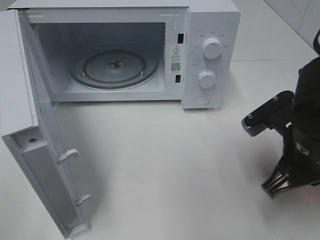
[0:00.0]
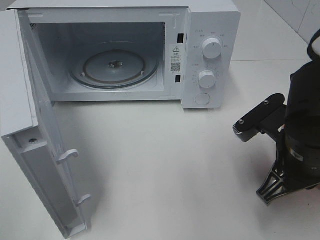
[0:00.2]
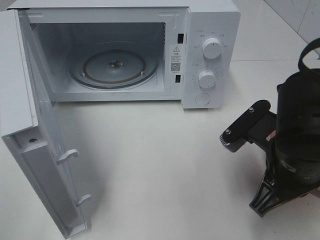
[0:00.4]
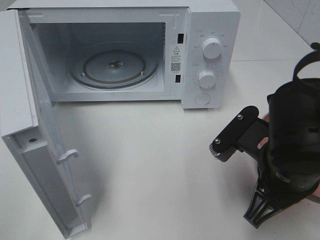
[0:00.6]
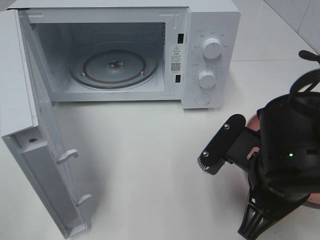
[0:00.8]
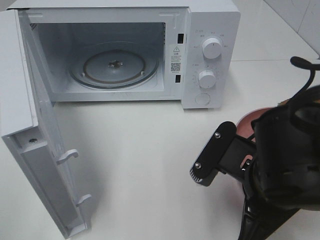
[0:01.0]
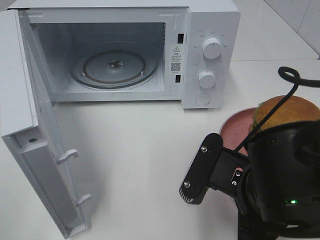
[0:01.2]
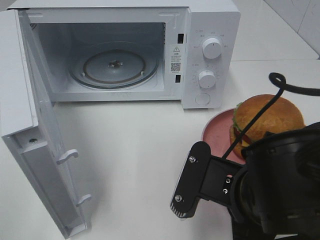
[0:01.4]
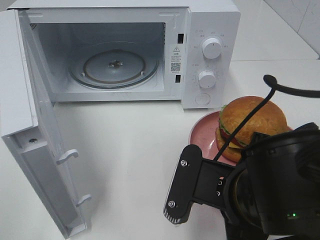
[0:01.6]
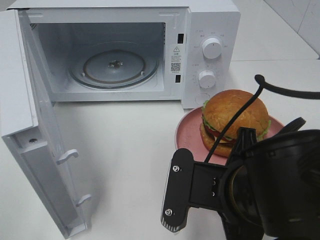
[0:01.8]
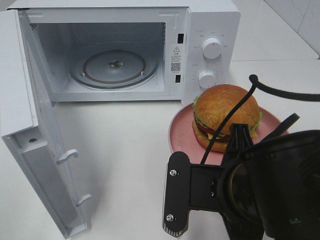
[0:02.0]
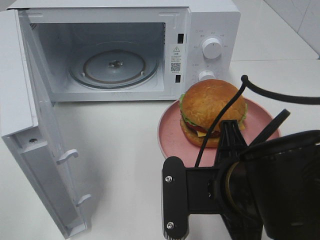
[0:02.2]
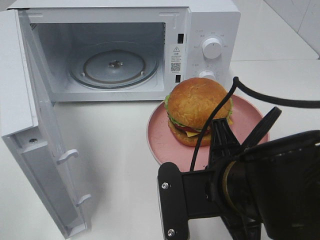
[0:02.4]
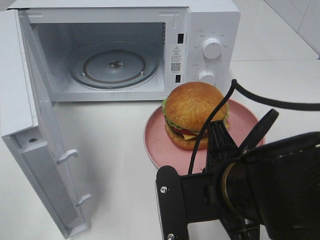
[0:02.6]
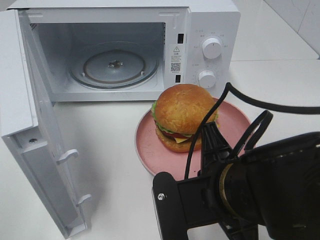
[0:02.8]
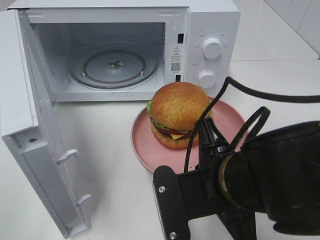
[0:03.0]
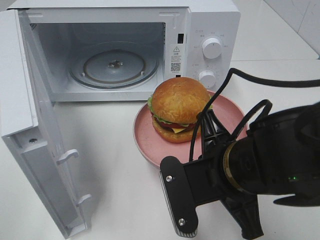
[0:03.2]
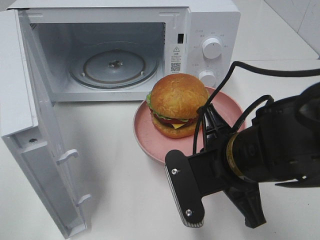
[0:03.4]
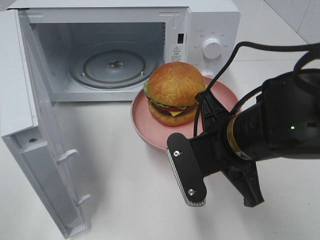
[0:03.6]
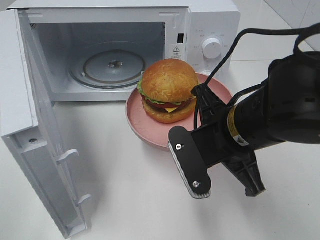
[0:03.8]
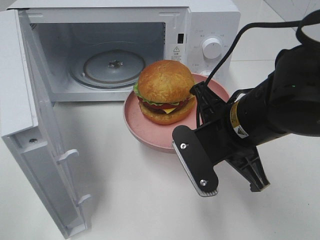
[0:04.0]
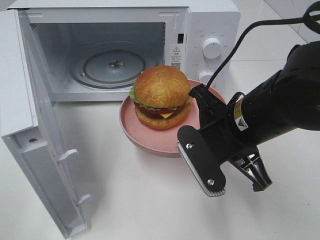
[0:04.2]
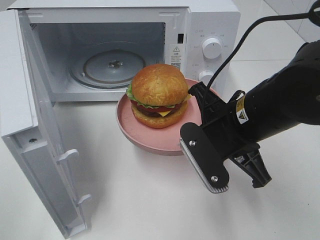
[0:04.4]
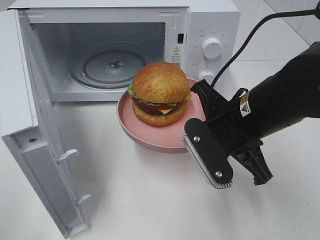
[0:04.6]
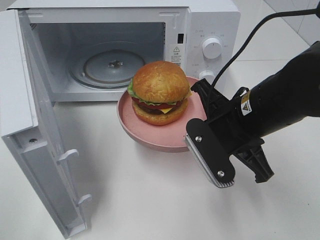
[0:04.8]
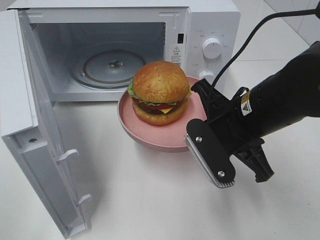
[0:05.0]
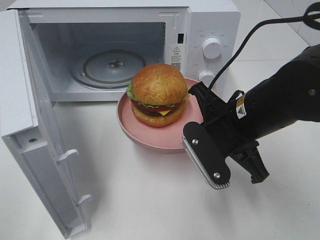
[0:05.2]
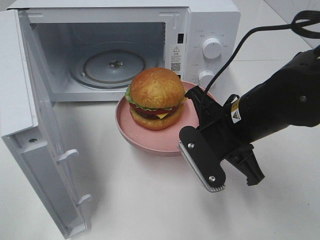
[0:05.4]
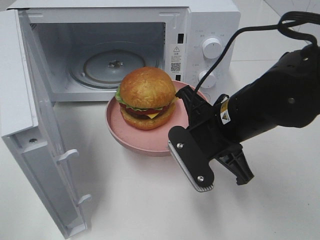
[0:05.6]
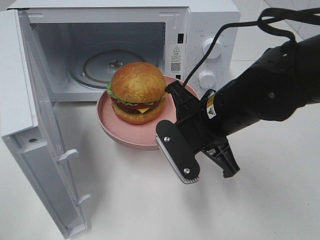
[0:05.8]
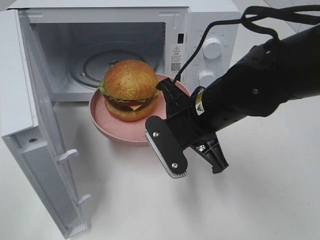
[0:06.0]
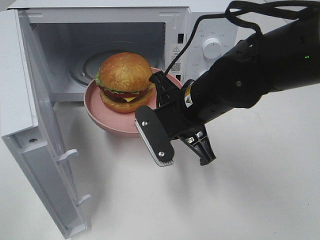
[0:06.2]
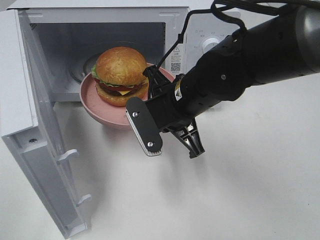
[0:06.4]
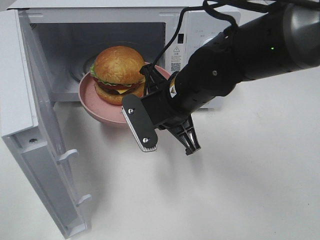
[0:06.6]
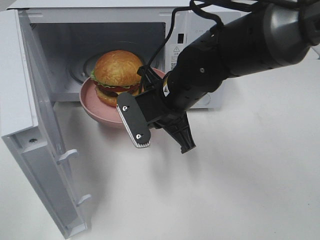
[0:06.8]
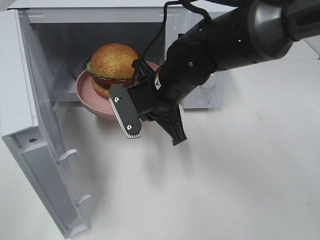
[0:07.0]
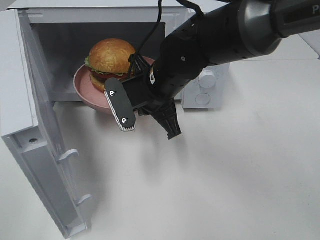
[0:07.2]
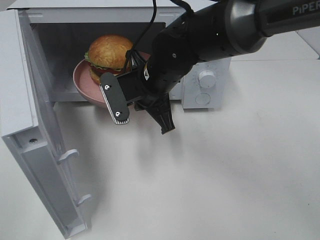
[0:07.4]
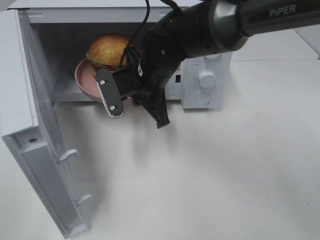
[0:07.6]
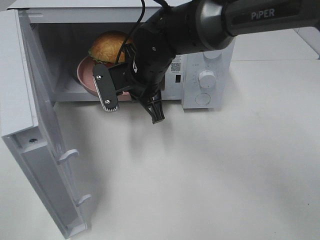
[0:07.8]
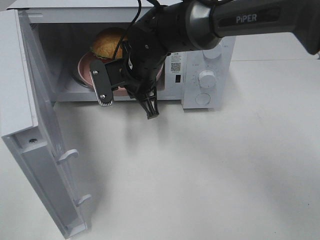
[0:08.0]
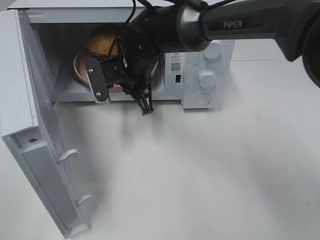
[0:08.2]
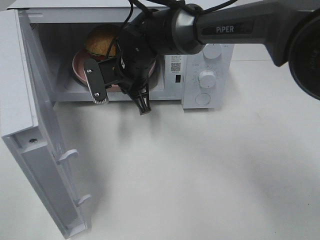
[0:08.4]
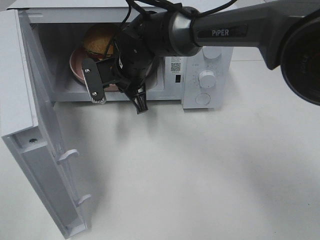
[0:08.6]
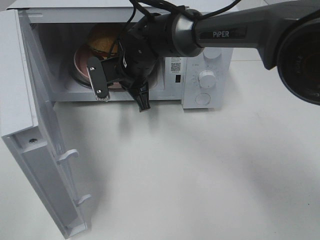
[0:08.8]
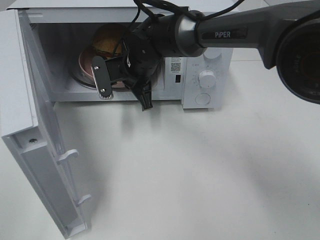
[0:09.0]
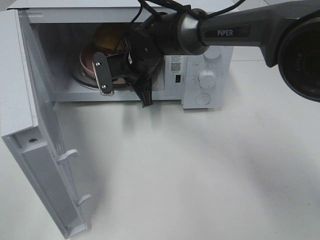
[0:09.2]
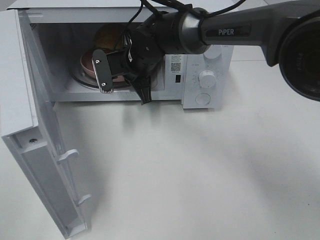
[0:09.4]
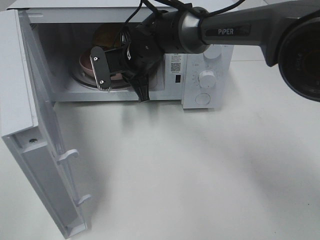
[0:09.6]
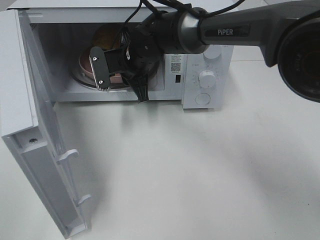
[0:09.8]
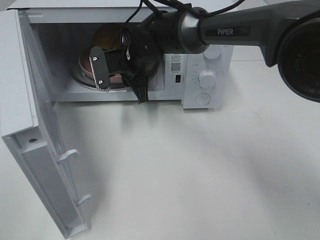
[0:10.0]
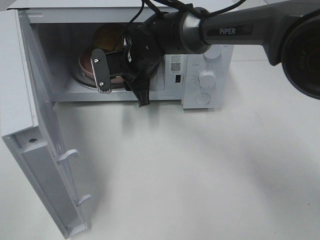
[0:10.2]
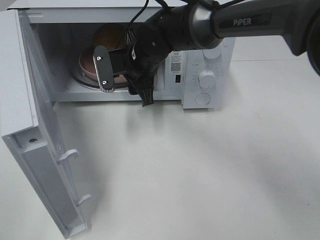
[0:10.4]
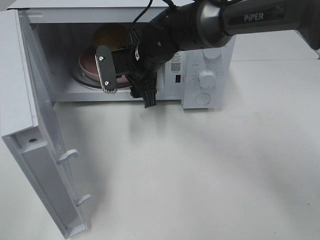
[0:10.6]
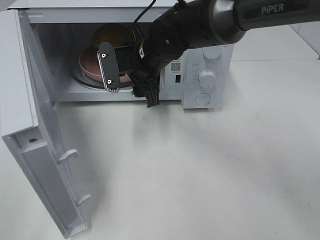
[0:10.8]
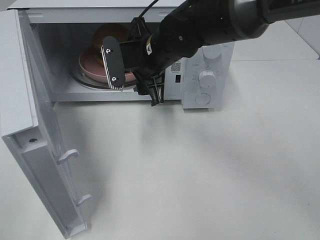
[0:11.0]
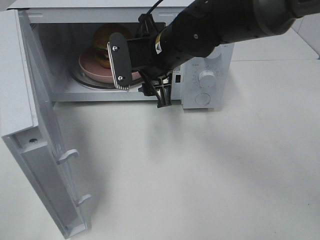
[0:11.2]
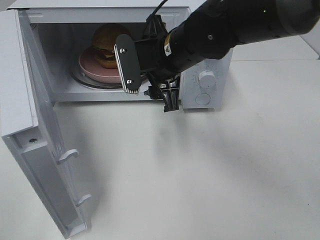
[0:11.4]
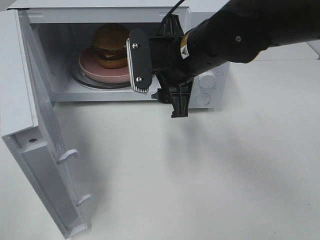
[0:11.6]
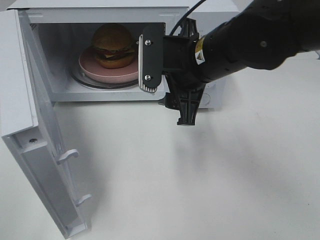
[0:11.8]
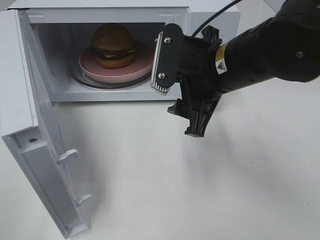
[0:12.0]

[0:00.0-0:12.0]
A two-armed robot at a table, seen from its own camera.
Task of the whole recording: Heat the burger.
Step, 0:00.0 to 0:10.0: Right hand: place the plate in the microwave.
0:00.0 to 0:01.6: The right gripper goes approximately 10 cm to the left and backward.
0:03.0 to 0:04.4: The right gripper heads forward, covering about 10 cm.
0:04.4 to 0:06.0: The right gripper ends up about 5 cm from where it was.
0:06.0 to 0:07.6: The right gripper travels forward and to the left by about 10 cm.
0:07.6 to 0:09.0: The right gripper shifts roughly 5 cm forward.
0:09.0 to 0:10.4: The right gripper opens its fingers.
0:10.4 to 0:12.0: The right gripper heads backward, to the right and upward, covering some 20 cm.

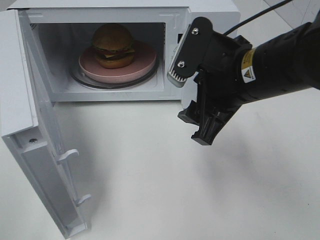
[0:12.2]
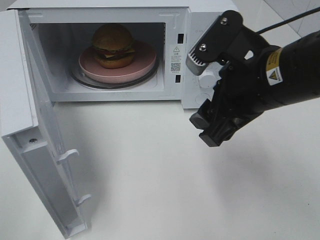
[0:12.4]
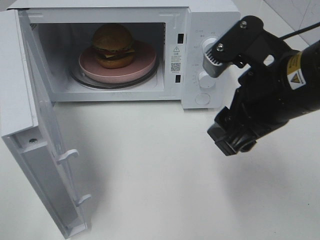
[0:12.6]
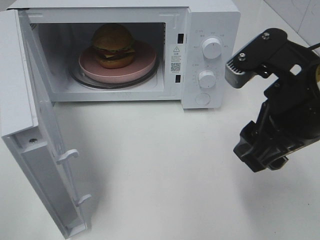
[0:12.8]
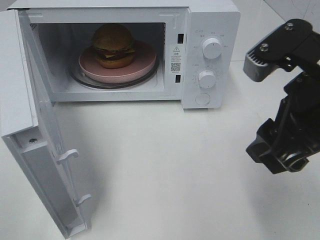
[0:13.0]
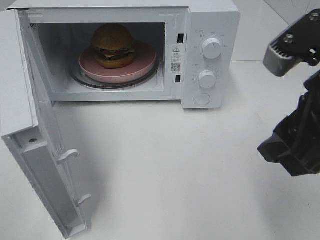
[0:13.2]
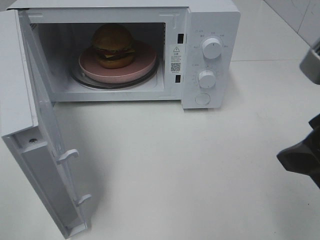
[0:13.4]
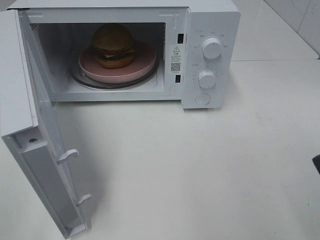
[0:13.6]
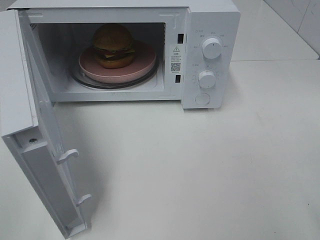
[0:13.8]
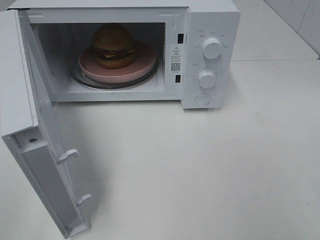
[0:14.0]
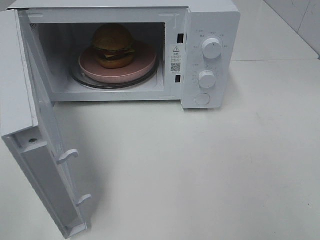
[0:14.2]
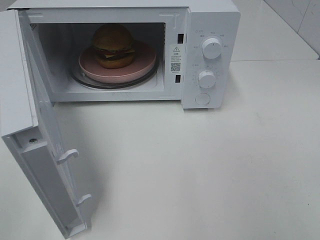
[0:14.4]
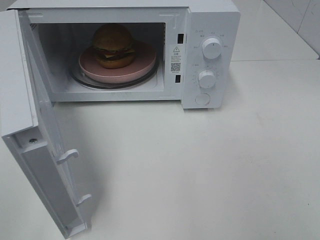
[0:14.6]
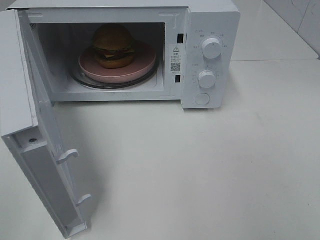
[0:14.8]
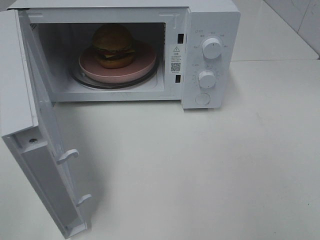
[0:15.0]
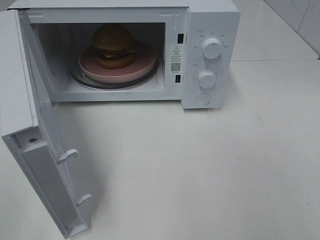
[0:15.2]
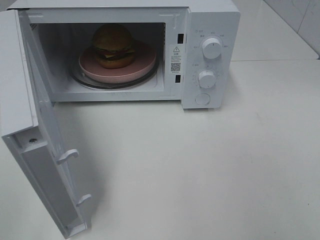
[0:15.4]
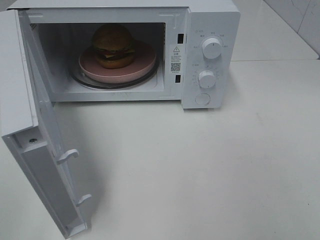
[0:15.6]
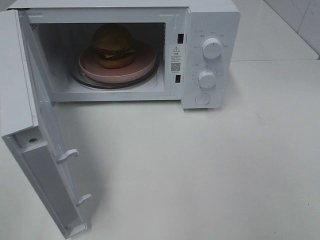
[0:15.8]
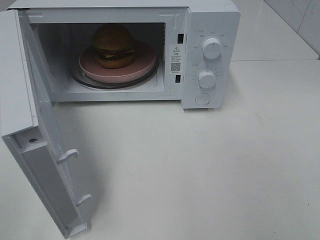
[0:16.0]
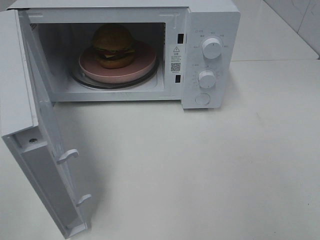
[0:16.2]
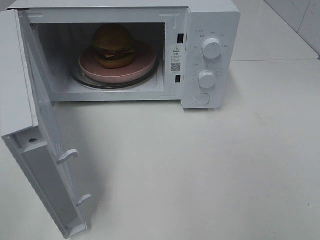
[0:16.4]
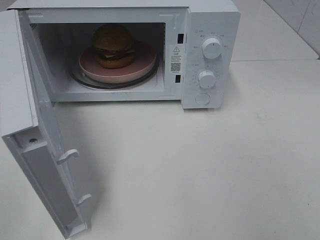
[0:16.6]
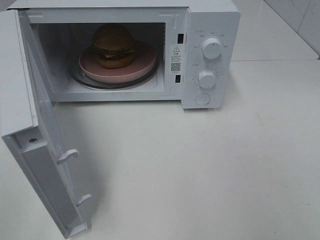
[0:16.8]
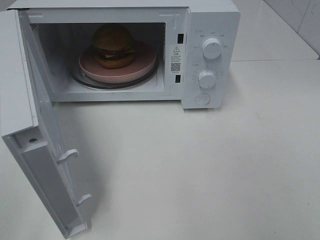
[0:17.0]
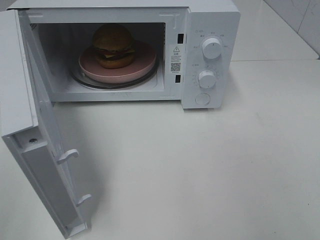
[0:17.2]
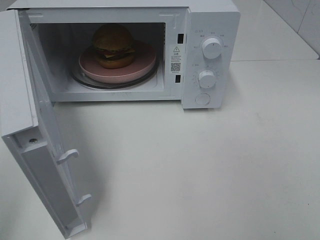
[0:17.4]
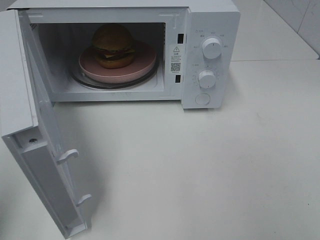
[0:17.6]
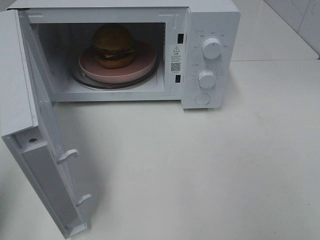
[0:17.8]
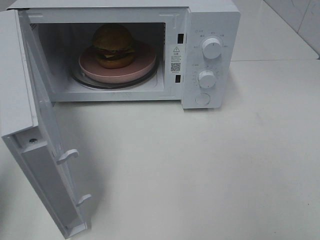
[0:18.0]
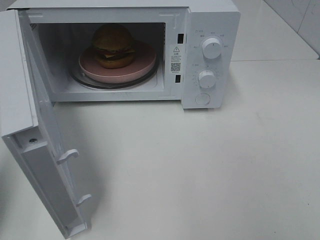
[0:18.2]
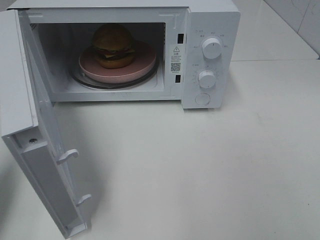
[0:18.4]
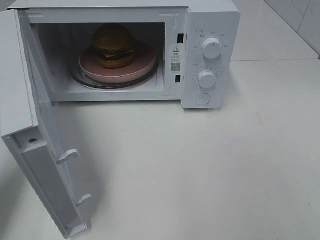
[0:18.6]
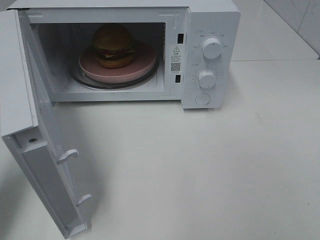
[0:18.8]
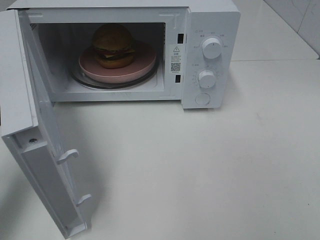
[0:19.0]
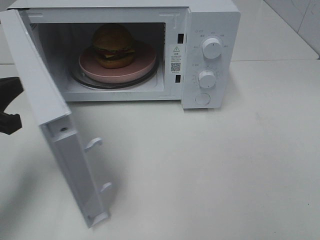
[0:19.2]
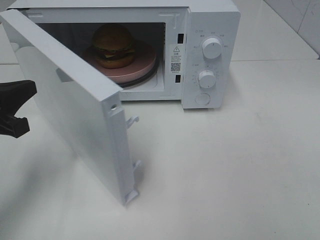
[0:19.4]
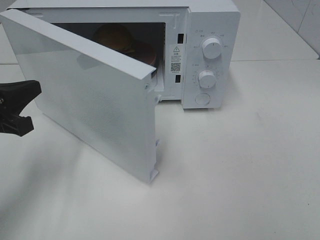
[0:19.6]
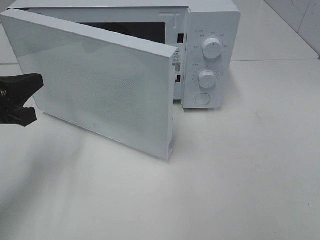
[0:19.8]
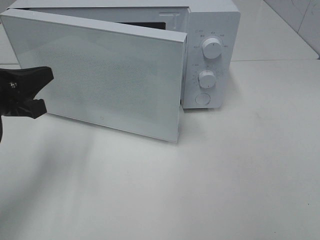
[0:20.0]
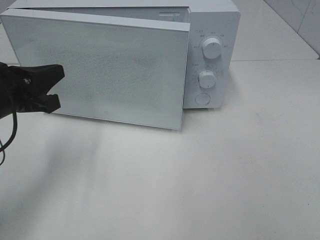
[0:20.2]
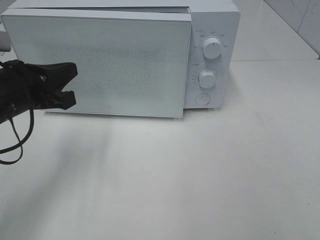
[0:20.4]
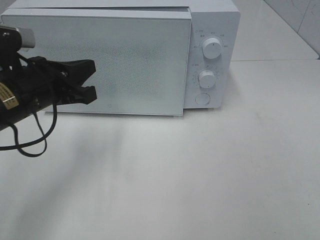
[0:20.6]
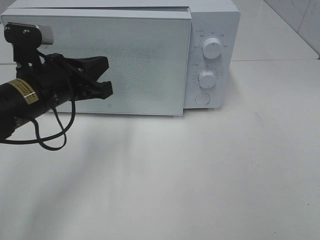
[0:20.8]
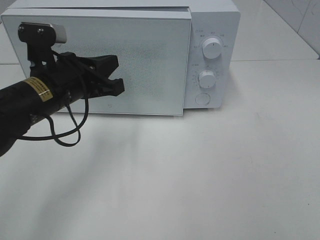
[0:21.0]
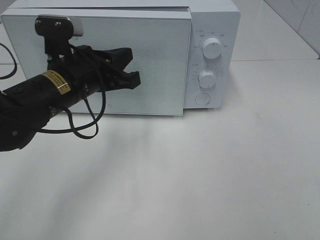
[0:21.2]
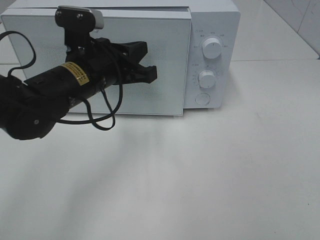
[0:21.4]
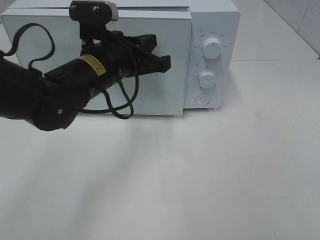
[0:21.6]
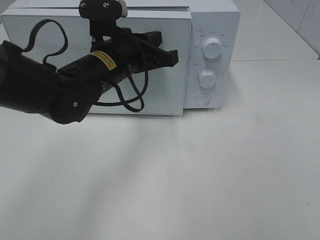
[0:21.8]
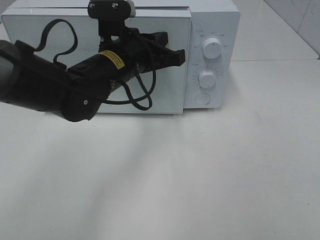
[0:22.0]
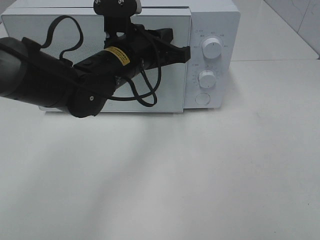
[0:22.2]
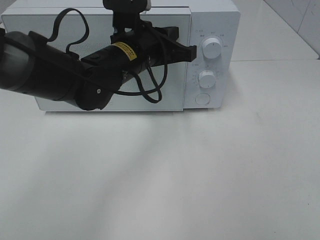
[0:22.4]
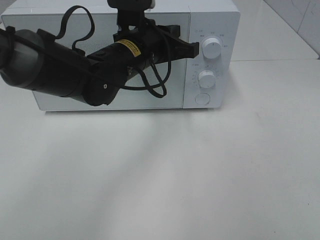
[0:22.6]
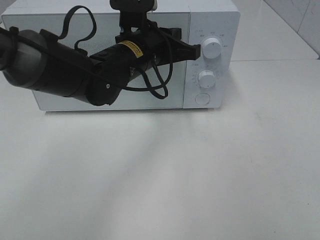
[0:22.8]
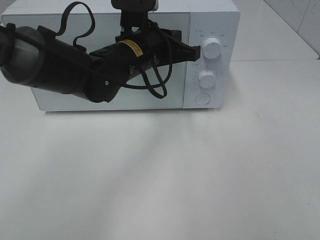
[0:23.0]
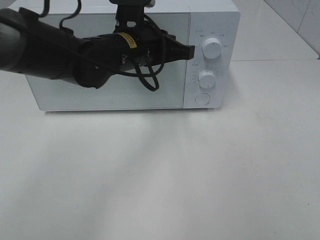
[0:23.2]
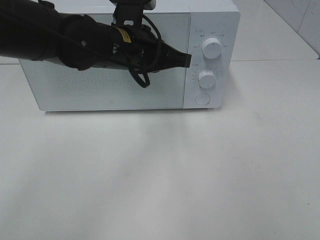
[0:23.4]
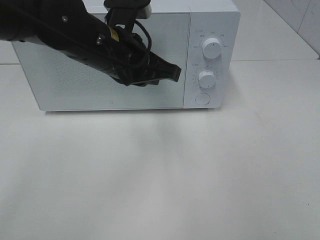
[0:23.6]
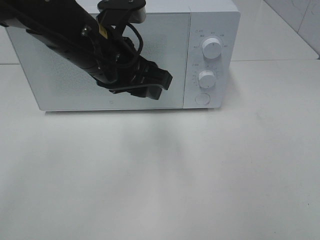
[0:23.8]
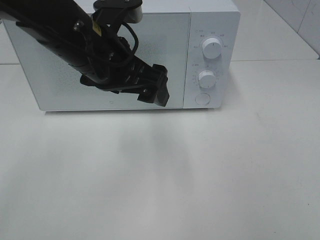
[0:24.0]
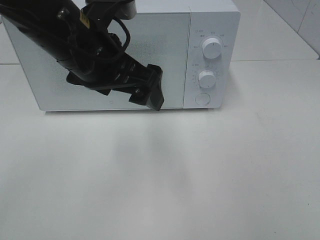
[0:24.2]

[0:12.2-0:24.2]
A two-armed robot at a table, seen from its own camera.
Task of the whole recording: Heat the burger.
Step, 0:12.2 to 0:23.4: Left hand: close the microwave door.
0:12.2 to 0:13.8: The right gripper travels to the right and backward by about 20 cm.
0:15.2 to 0:16.6: The two grippers keep their place.
0:16.6 to 0:18.2: The left gripper is displaced forward by roughly 15 cm, and closes.
0:18.2 to 0:19.8: The left gripper moves forward, downward and to the right, about 15 cm.
0:19.8 to 0:21.2: The left gripper goes roughly 15 cm to the right.
0:21.2 to 0:22.6: The left gripper goes approximately 10 cm to the right and forward.
0:22.6 to 0:24.2: The left gripper is displaced backward, upward and to the left by about 10 cm, and opens up.
